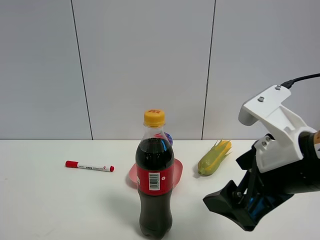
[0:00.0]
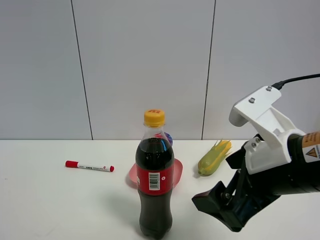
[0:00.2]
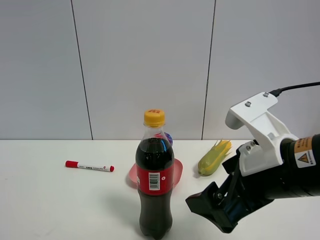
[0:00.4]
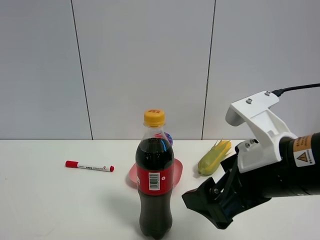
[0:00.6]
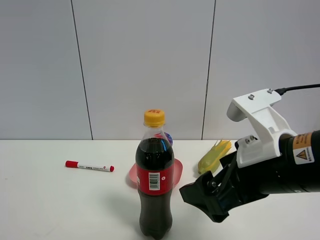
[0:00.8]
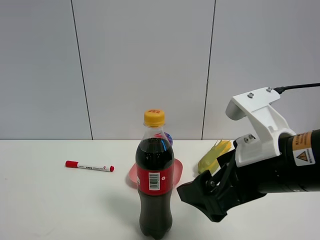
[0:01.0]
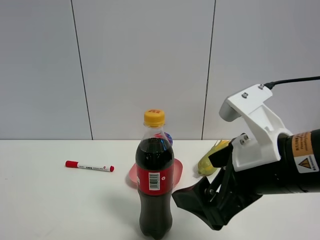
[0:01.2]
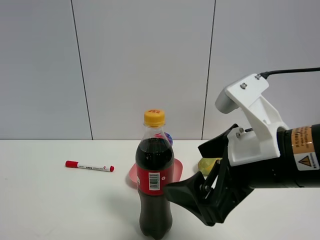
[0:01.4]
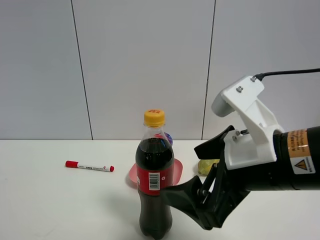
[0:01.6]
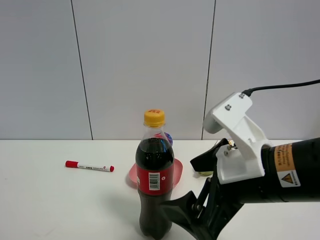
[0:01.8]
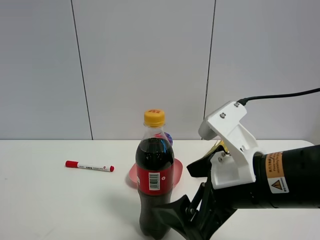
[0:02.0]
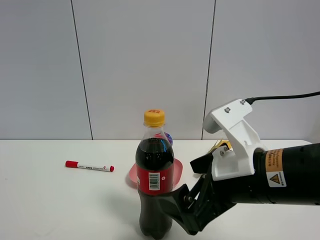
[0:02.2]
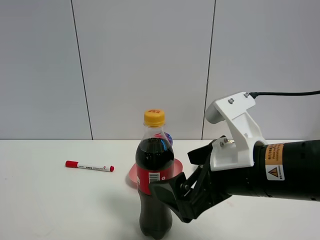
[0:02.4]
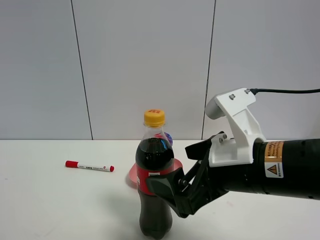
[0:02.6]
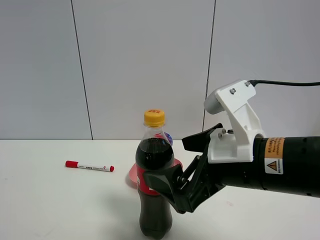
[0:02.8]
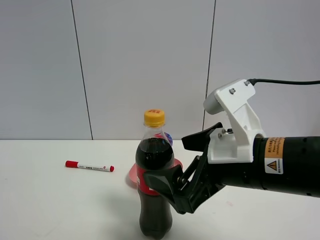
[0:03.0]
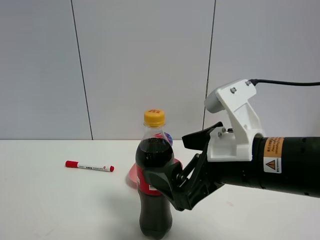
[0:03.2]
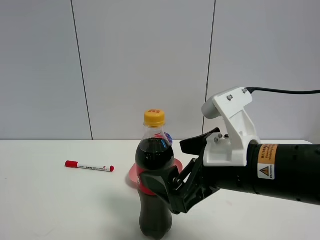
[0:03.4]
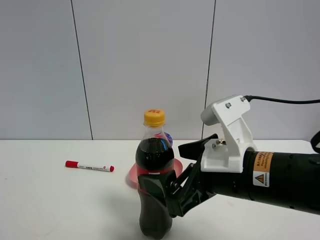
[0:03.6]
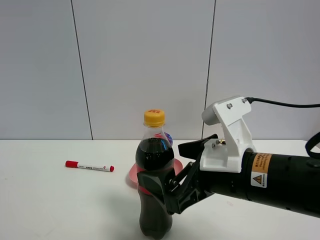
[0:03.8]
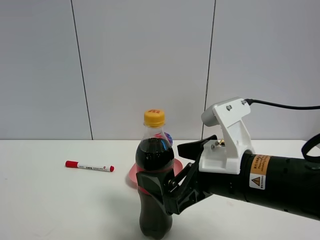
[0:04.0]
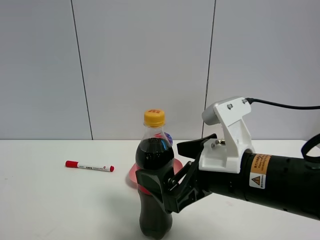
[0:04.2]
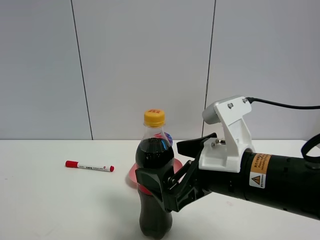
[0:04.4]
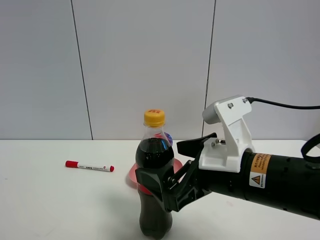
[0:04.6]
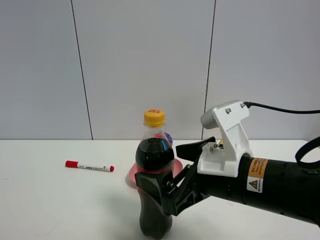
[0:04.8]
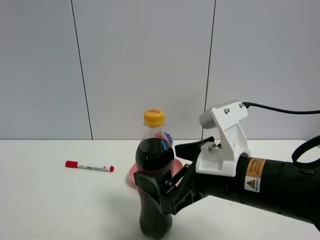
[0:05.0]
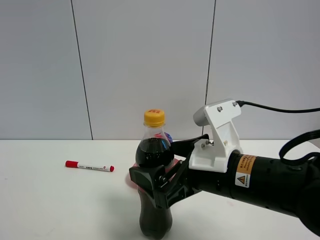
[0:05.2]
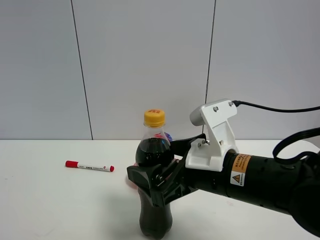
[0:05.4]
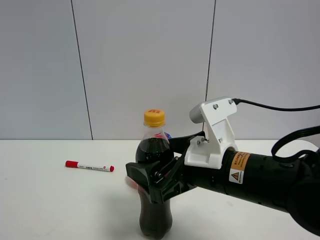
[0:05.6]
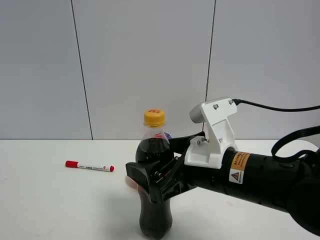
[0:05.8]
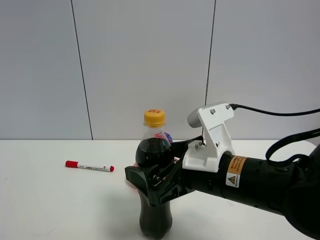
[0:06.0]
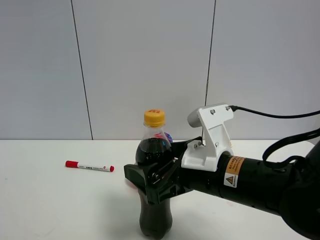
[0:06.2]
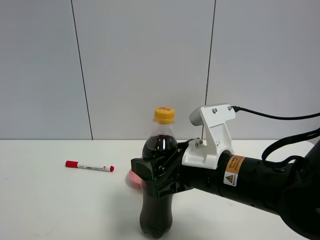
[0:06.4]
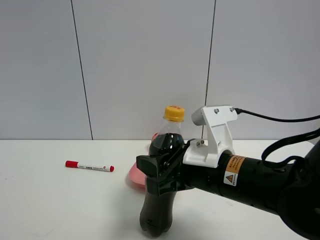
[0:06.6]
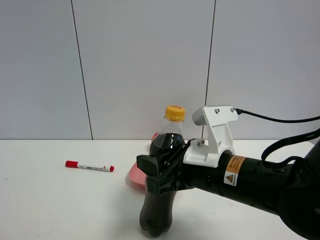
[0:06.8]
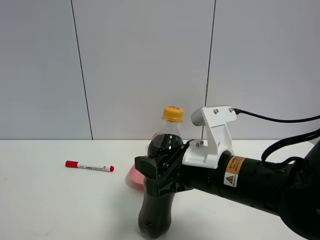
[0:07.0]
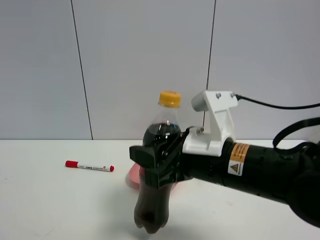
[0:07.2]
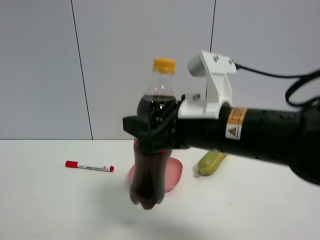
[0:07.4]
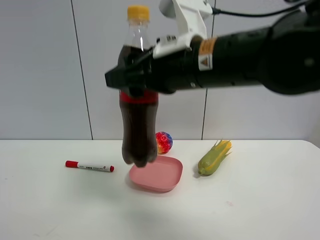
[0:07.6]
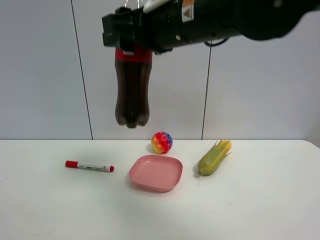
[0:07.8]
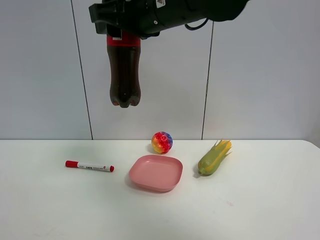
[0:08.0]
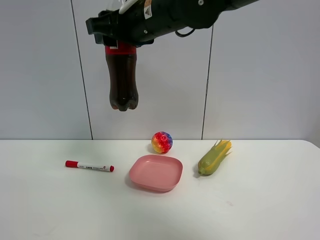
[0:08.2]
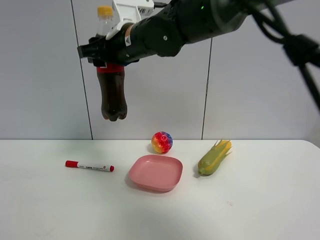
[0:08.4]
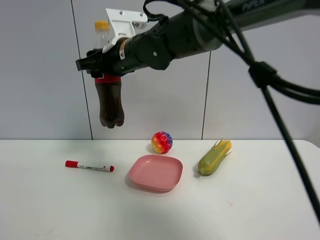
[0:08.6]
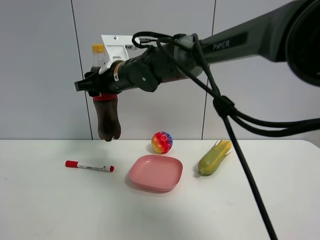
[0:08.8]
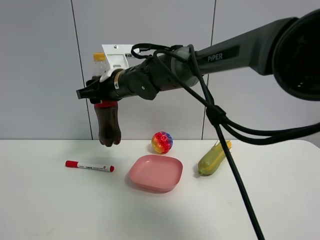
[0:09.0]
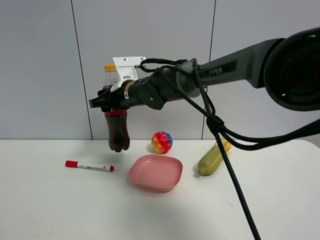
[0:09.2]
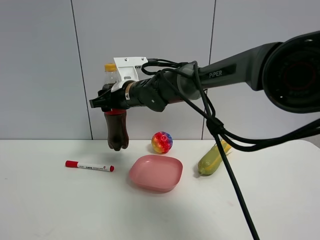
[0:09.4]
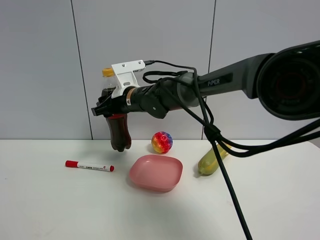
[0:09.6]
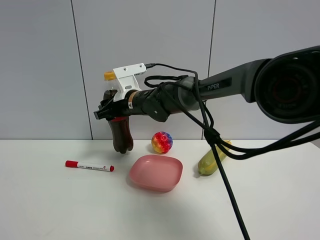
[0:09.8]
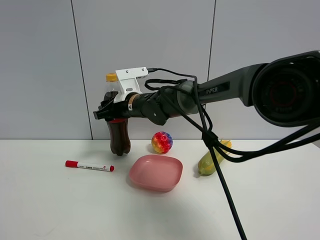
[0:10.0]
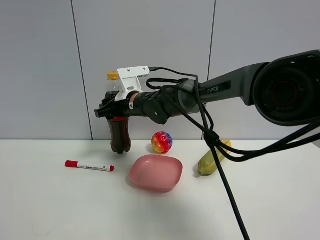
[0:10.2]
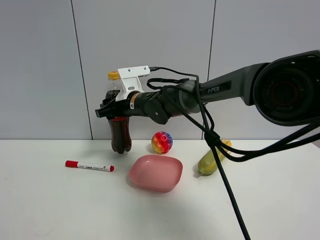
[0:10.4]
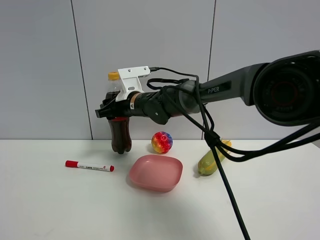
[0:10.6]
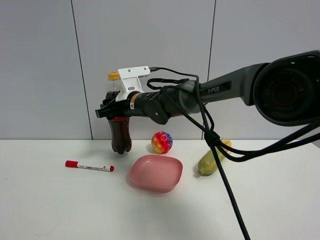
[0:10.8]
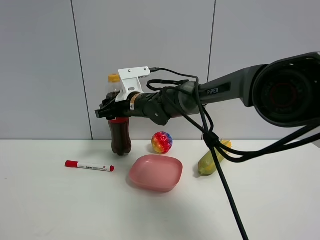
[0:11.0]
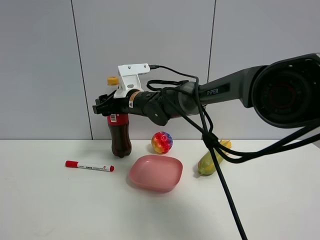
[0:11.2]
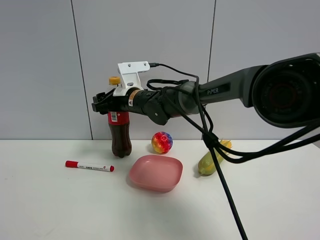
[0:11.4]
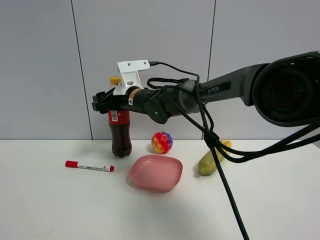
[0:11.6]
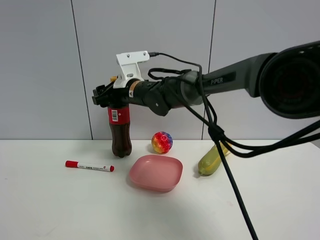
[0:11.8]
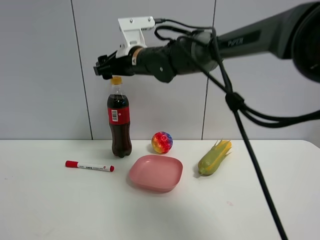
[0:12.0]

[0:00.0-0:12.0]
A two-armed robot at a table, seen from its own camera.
Task of the whole recording: the gripper move the object.
Step, 0:00.0 to 0:06.6: Grasp the coke with the right gripper.
Step, 0:06.8 to 0:11.6: Place the coke on the table with the right gripper.
0:00.0 to 0:01.6: There are only small adjustments of the grippers.
0:01.6 to 0:04.4: The grippers move only a little.
0:04.4 to 0:06.0: The grippers move only a little.
0:06.0 to 0:07.6: The right gripper moves upward, about 15 cm, and closes up.
0:07.6 to 0:09.0: The right gripper is displaced forward and to the left by about 20 cm.
0:09.0 to 0:10.4: The right gripper shifts some 5 cm downward.
0:10.4 to 0:12.0: The right gripper heads upward, covering some 10 cm, and opens up.

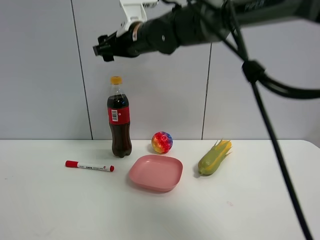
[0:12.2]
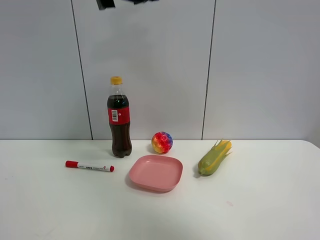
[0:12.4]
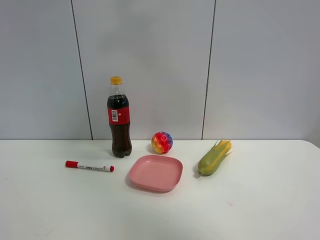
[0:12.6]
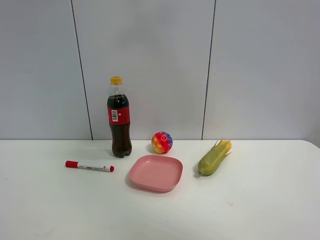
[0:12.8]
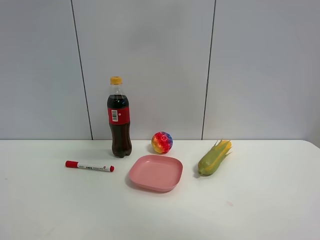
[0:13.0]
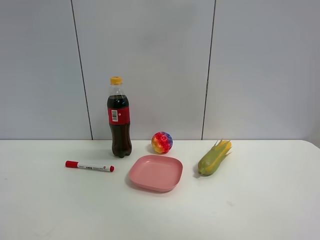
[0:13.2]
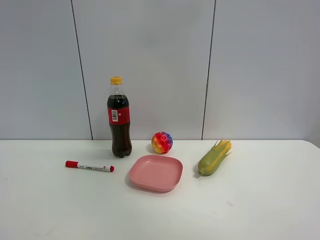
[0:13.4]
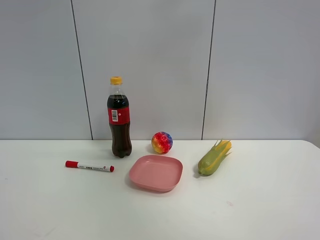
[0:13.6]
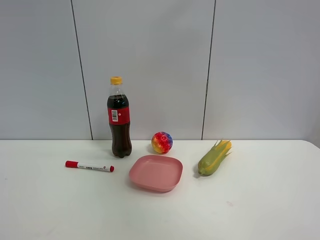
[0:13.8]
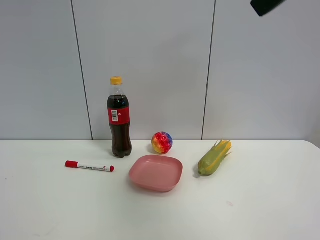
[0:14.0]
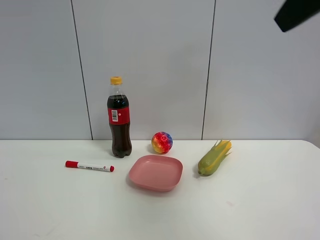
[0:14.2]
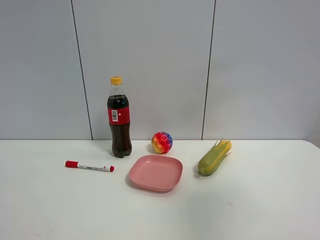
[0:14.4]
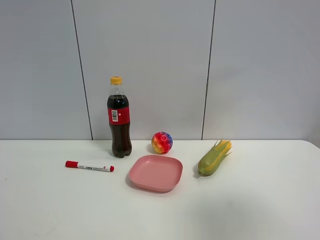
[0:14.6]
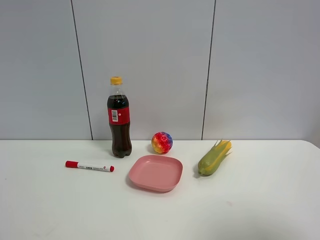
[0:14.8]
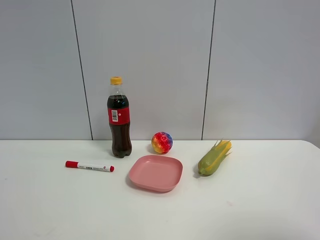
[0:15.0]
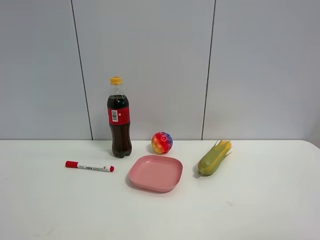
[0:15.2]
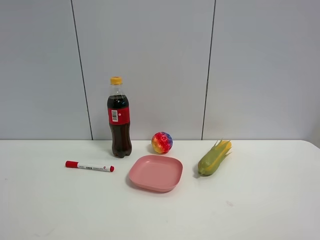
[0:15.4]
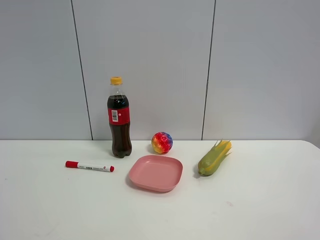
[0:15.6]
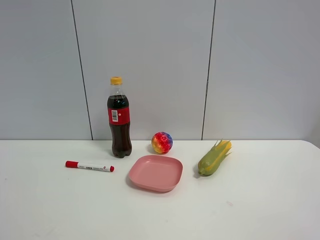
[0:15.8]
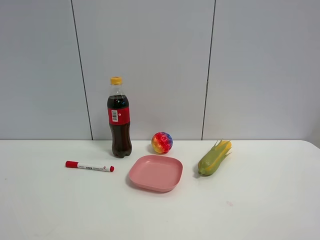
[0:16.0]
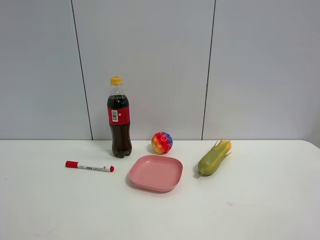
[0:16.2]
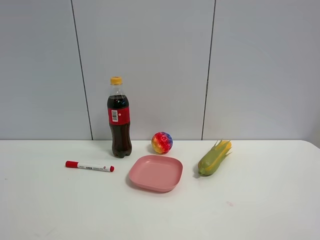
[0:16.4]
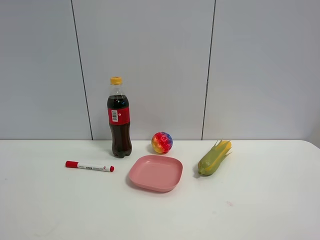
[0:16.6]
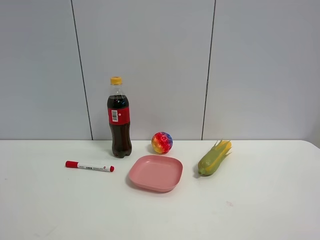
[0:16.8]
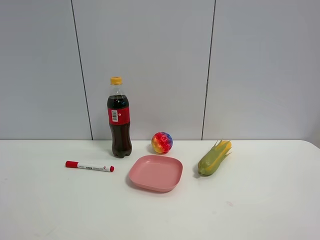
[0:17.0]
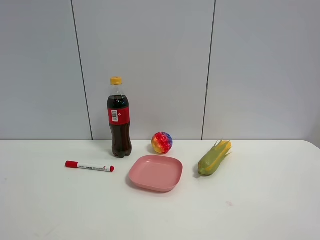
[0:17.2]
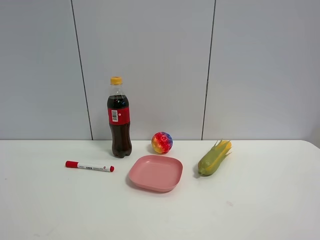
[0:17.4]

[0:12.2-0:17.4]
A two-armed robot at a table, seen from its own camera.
Task of the whole recording: the gripper move the object.
0:12.2 to 0:14.0: The right gripper is displaced backward, to the right and upward by roughly 35 cm, and opens.
0:14.0 to 0:15.6: The right gripper shifts about 25 cm backward, downward and to the right.
0:15.6 to 0:17.4: Both grippers stay about where they are.

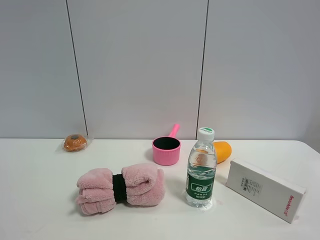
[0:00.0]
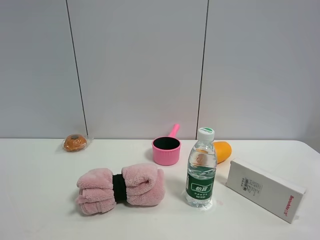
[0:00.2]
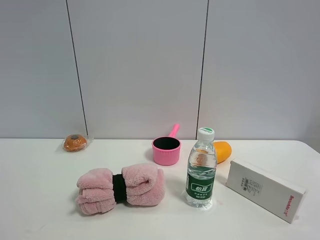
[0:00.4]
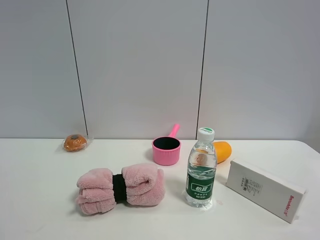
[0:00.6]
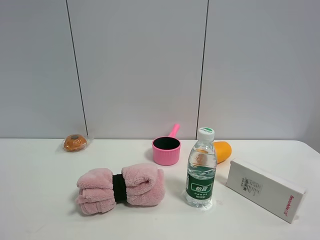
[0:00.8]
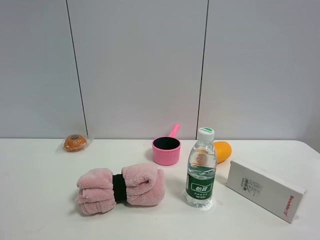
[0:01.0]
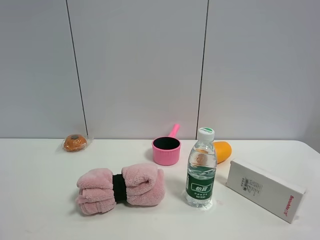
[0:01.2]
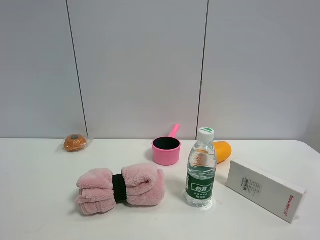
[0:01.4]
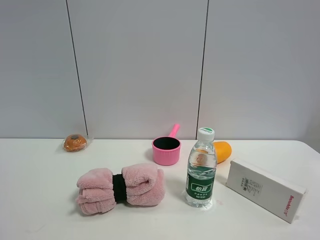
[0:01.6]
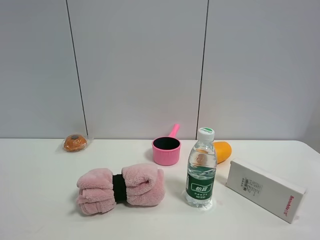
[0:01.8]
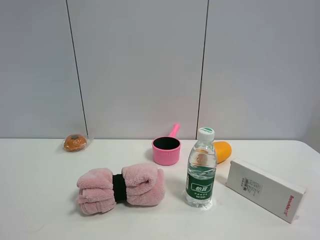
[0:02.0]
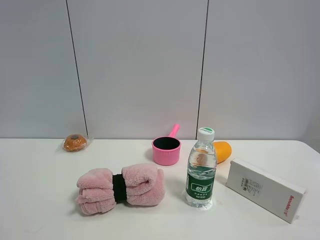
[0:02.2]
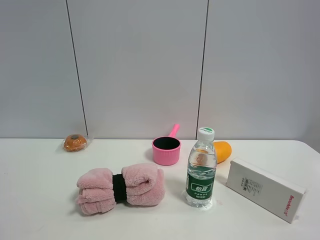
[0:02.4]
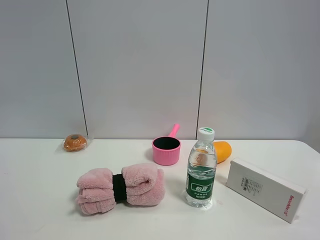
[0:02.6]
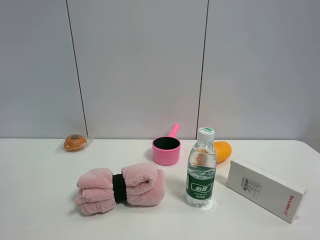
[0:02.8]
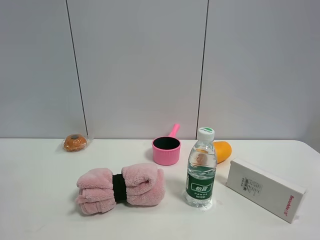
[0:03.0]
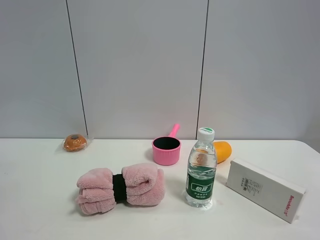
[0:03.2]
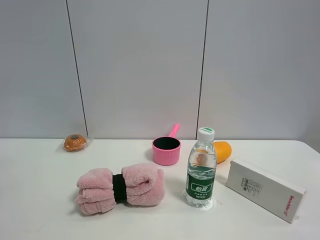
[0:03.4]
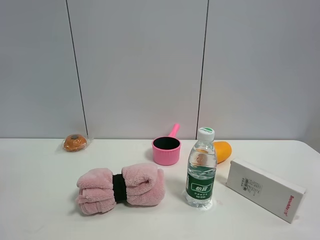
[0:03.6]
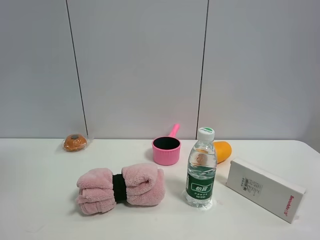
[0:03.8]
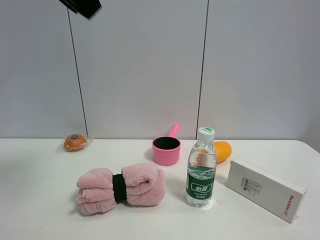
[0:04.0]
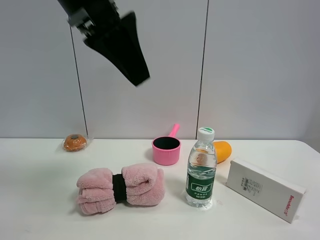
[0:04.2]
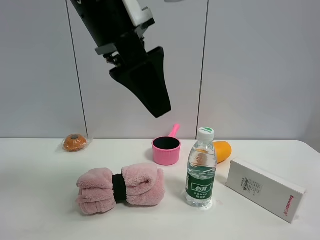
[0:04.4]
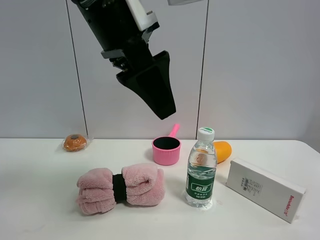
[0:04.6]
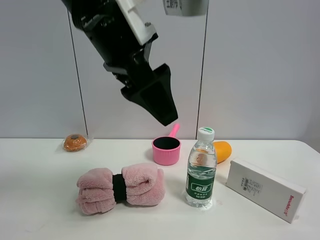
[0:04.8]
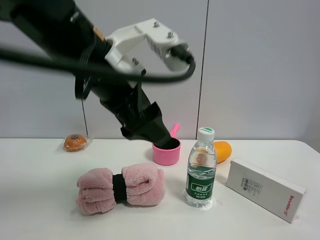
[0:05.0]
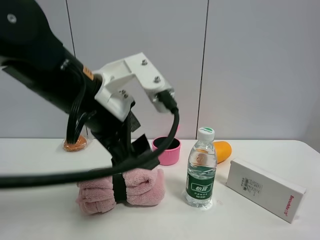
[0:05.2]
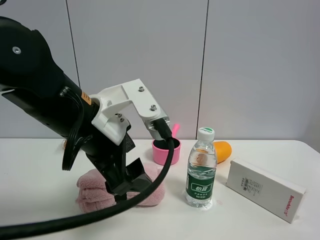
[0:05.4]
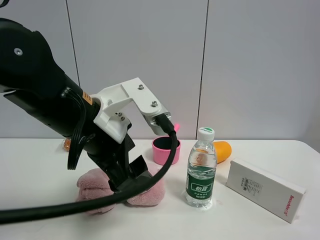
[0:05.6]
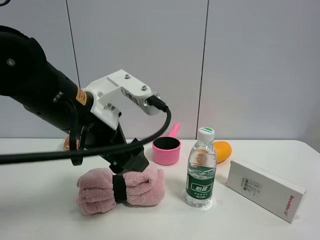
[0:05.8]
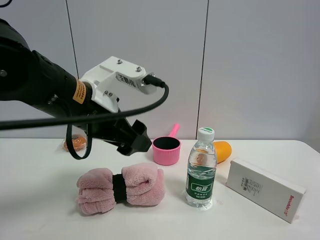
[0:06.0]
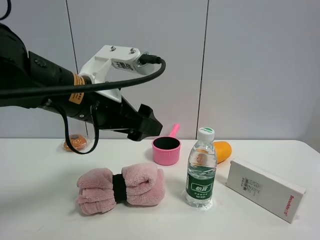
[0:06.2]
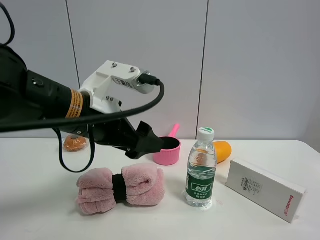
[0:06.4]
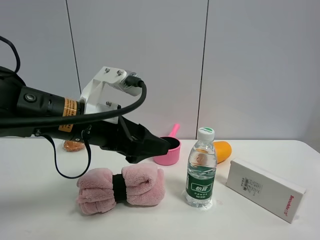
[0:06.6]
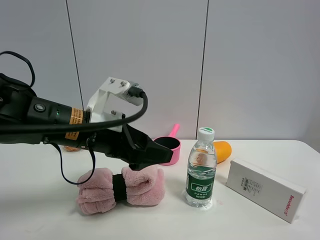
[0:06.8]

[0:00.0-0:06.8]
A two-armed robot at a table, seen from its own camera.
Task of the whole recording: the gripper move the object.
0:00.0 to 0:01.4: Both grippers stay put.
0:02.8 to 0:04.0: The left gripper moves to the right and forward, some 15 cm.
0:04.0 to 0:05.4: The left gripper is displaced downward by about 20 cm.
0:05.4 to 0:06.8: The left gripper shifts by roughly 5 cm.
